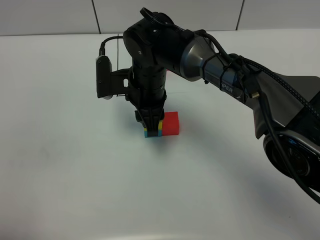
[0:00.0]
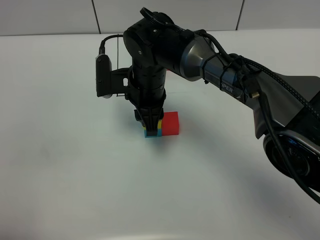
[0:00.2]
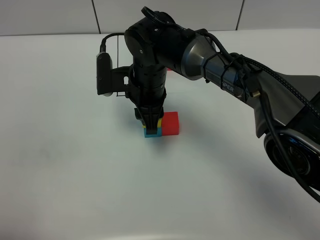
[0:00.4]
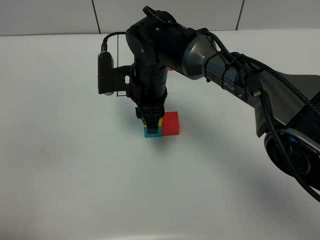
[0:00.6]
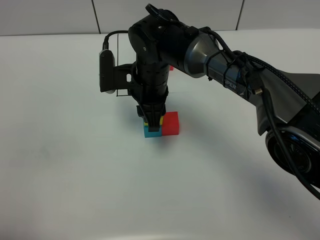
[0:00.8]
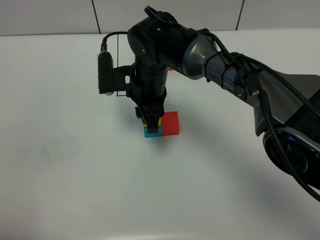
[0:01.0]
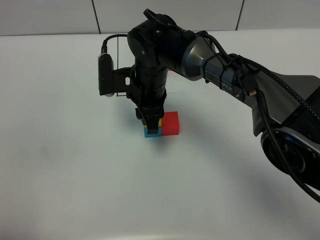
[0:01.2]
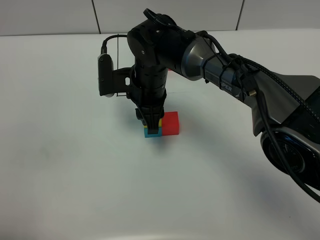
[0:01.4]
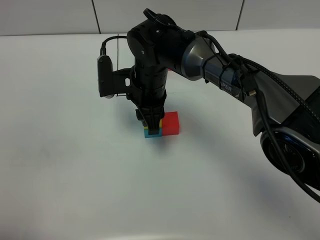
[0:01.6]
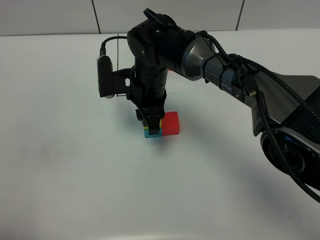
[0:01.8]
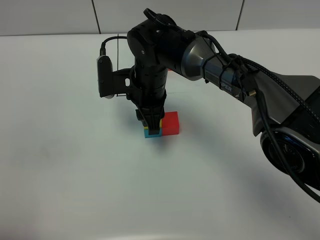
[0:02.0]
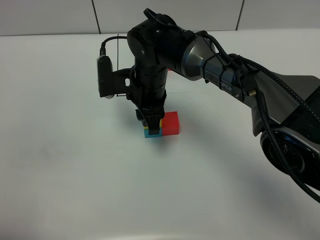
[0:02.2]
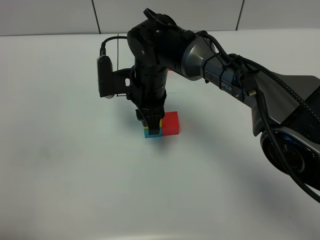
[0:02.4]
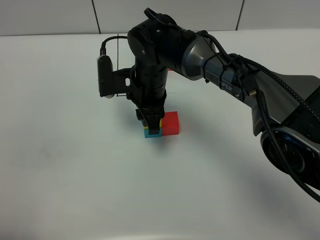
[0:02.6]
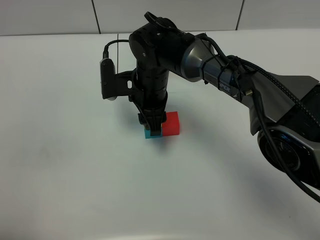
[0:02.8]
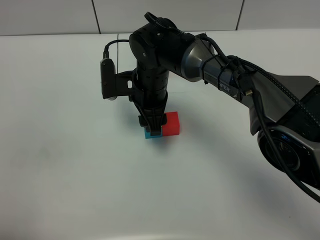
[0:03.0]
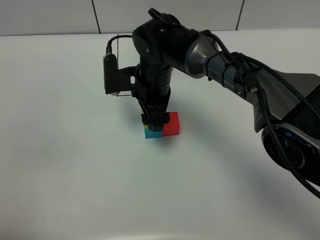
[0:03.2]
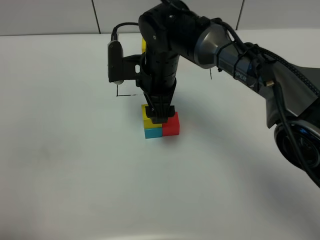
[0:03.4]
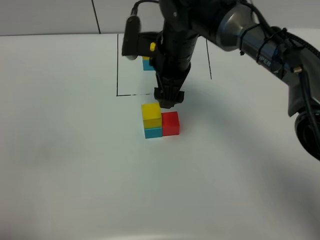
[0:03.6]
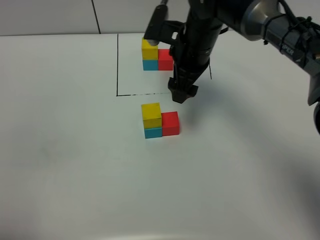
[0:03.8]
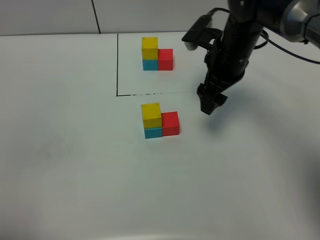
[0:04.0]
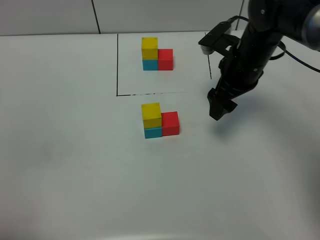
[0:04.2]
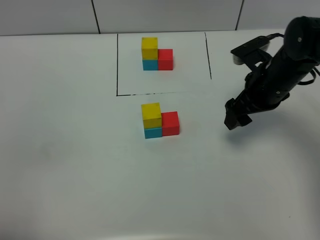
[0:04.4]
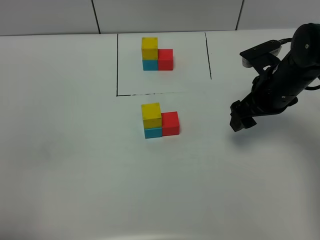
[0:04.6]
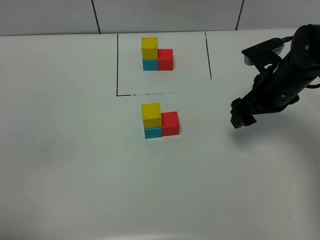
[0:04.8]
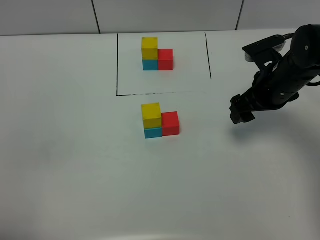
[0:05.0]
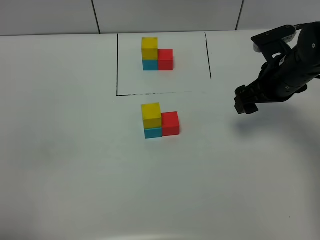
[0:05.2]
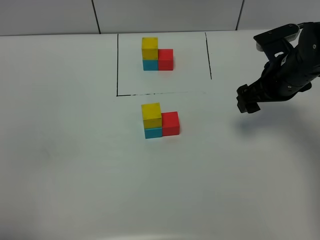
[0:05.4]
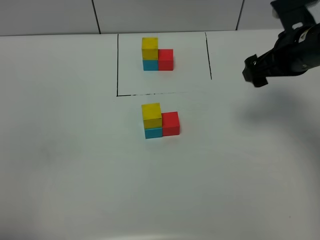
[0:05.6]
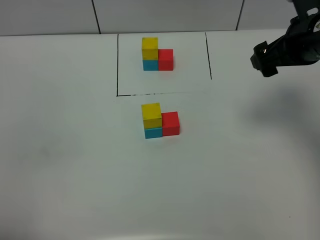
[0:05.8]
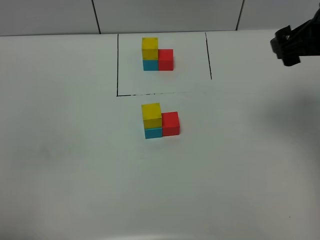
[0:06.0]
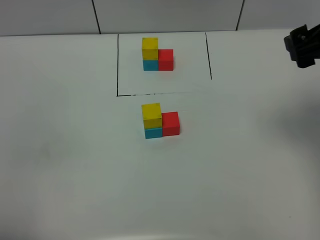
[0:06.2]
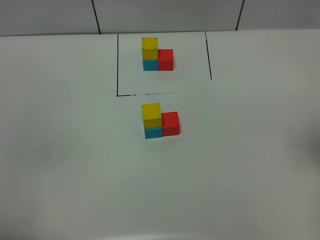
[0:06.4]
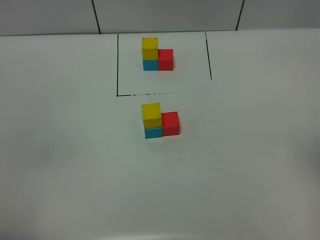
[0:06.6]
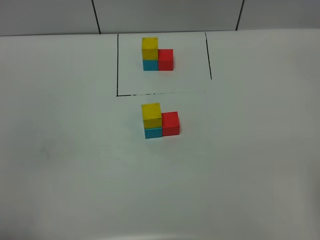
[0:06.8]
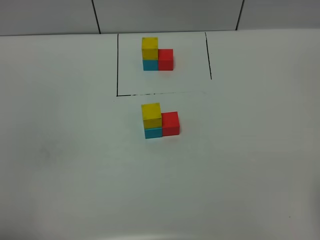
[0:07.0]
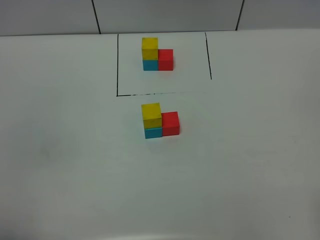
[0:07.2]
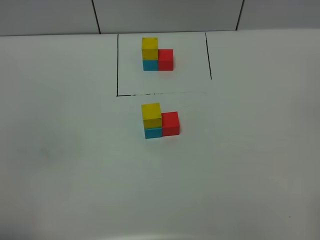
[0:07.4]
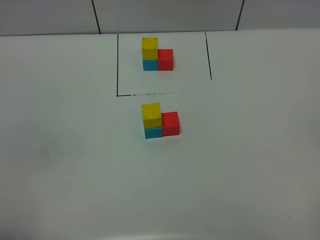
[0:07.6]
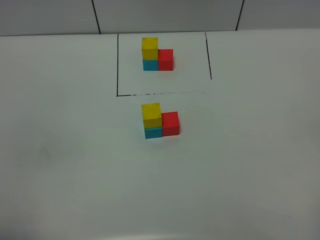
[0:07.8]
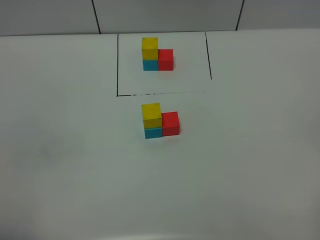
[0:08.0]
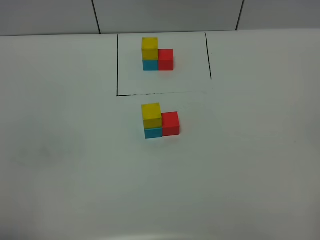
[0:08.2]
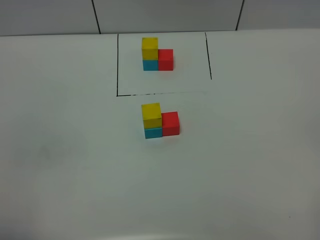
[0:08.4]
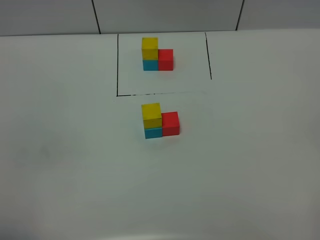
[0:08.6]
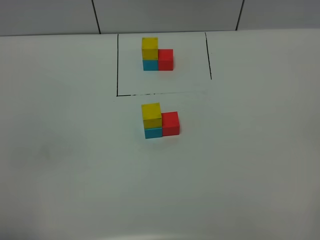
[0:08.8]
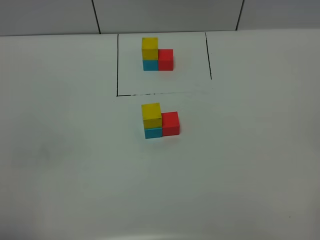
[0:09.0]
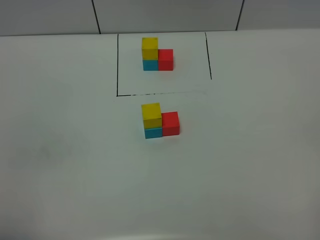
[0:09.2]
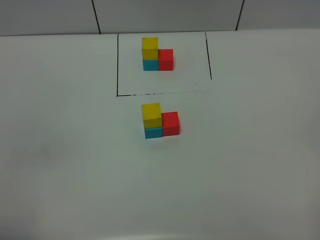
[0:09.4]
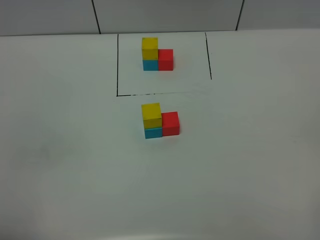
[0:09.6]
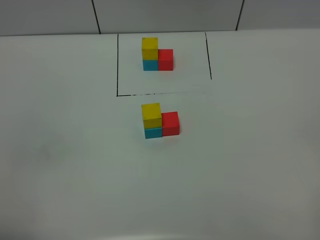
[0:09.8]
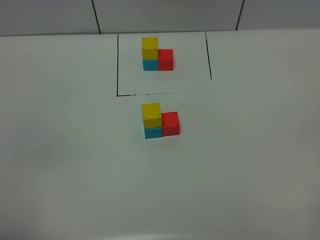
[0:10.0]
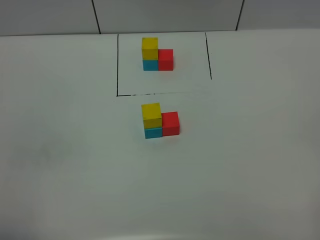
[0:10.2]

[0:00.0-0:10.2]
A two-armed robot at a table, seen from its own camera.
Task of the whole recording: According to the building block template in front, assemble the scattered blocks together.
Step, 0:00.0 to 0:03.2: Put the yellow build block on the blue build block.
0:00.0 to 0:01.4: The grippers make only small movements.
0:01.4 to 0:03.0: The right gripper opens.
0:03.0 to 0:04.4: The right gripper heads to the right, covering roughly 20 cm.
0:04.4 to 0:05.8: The right gripper shifts roughly 10 cm upward.
0:05.8 to 0:07.2: The right gripper moves backward, about 30 cm.
0:08.8 to 0:10.2: Both grippers stay about where they are.
